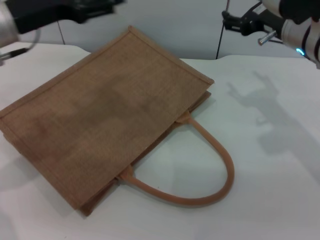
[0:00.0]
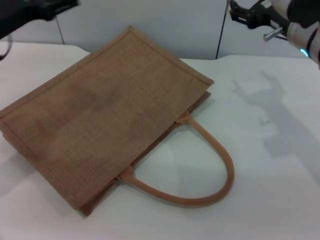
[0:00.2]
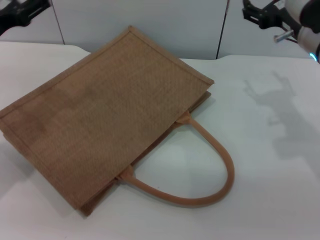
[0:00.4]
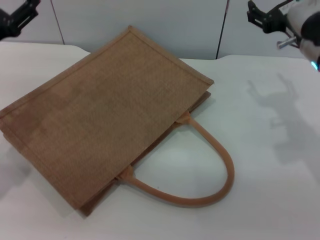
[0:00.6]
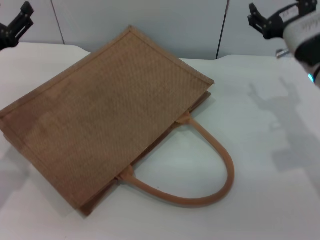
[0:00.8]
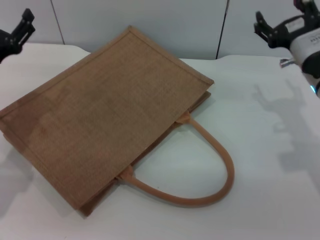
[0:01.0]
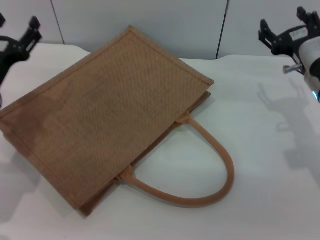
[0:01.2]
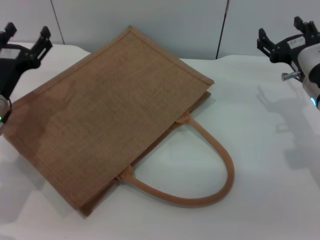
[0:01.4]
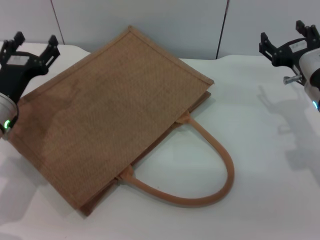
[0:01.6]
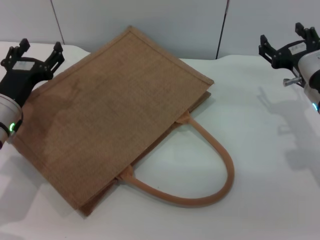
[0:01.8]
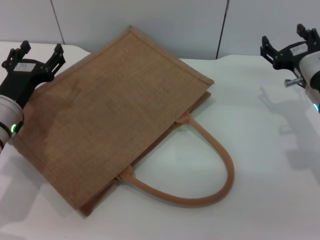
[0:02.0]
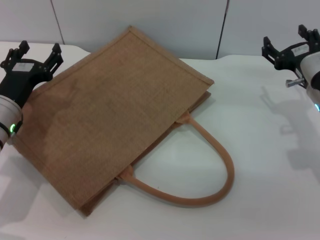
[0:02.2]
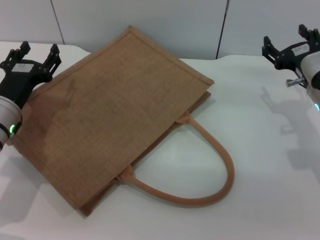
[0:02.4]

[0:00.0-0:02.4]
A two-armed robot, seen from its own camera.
Task of the whole recording: pick up the peach from the table and place it in the brown handbag.
0:00.0 to 0:01.2: The right gripper is displaced downward by approximately 10 cm. Meanwhile the left gripper goes approximately 15 cm downward and backward.
0:01.2 to 0:02.4: There are only small adjustments of the grippers.

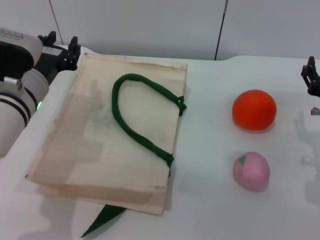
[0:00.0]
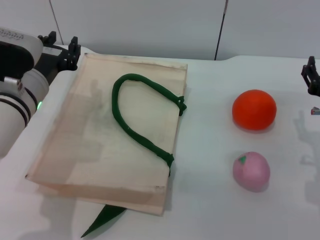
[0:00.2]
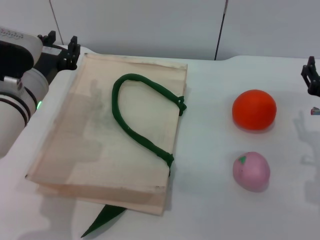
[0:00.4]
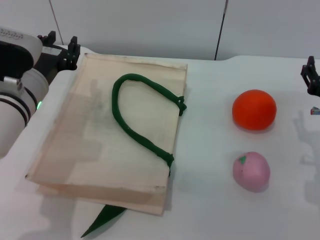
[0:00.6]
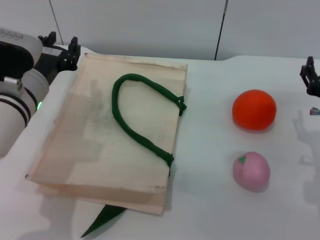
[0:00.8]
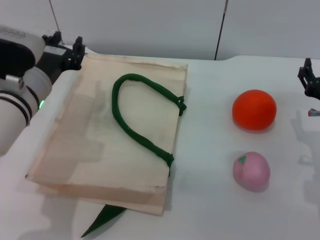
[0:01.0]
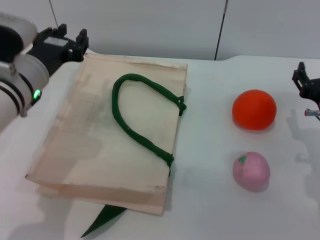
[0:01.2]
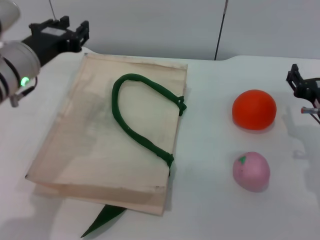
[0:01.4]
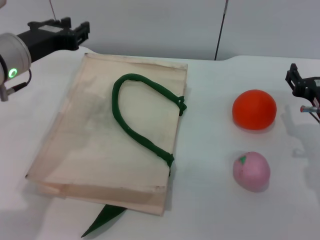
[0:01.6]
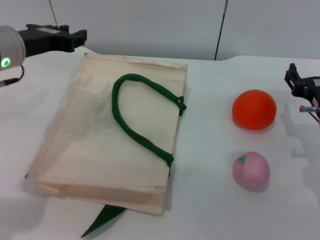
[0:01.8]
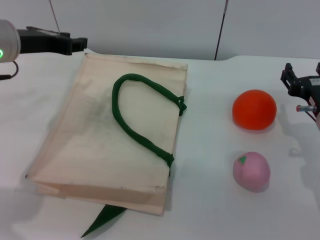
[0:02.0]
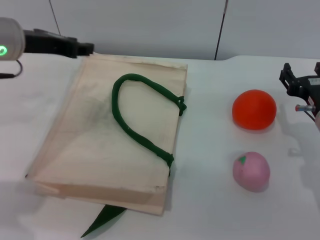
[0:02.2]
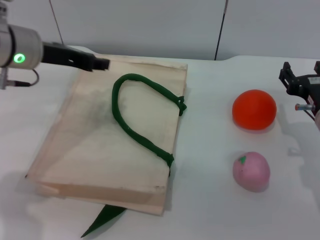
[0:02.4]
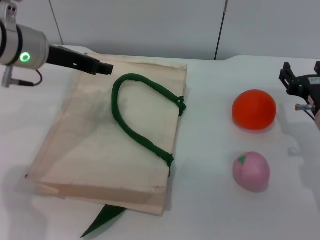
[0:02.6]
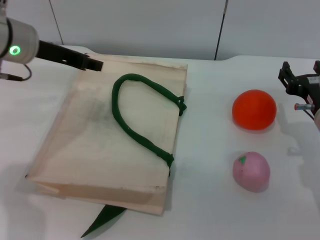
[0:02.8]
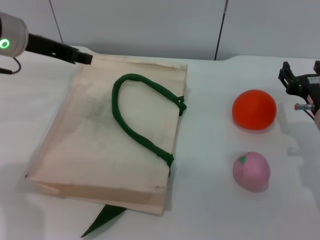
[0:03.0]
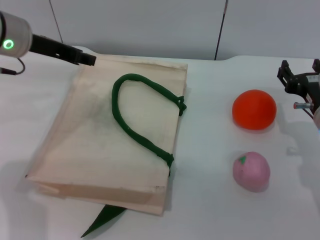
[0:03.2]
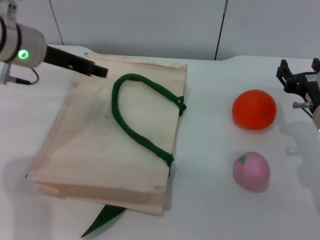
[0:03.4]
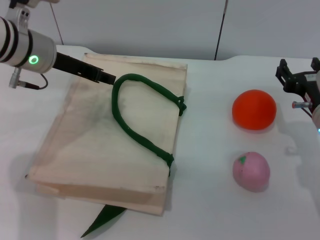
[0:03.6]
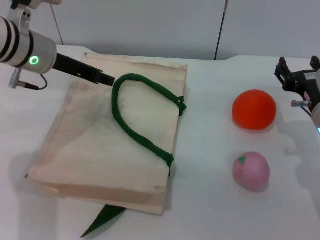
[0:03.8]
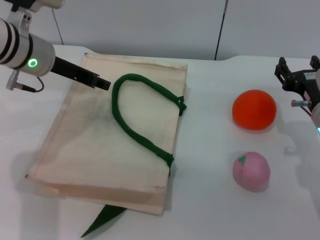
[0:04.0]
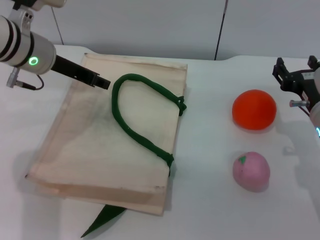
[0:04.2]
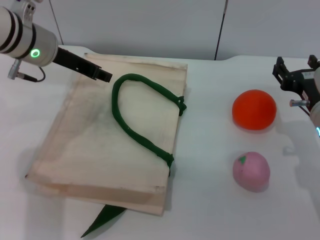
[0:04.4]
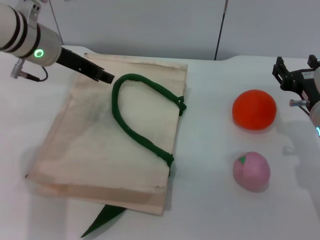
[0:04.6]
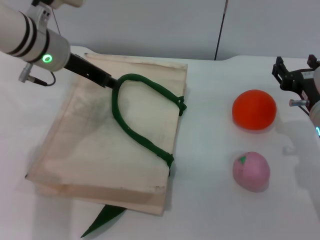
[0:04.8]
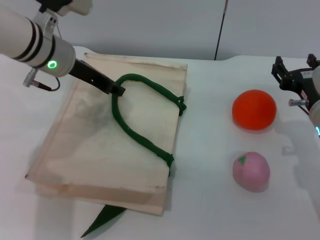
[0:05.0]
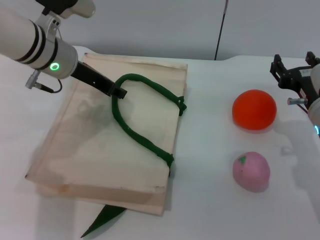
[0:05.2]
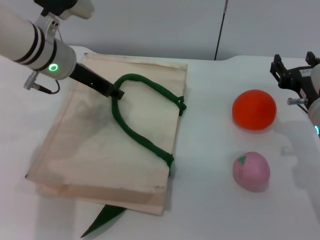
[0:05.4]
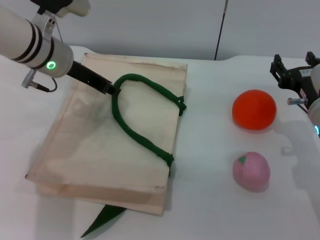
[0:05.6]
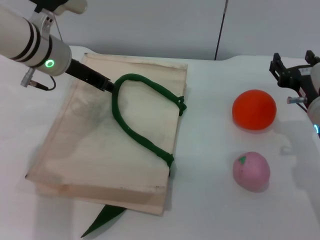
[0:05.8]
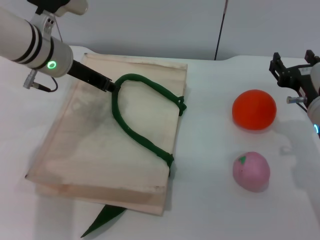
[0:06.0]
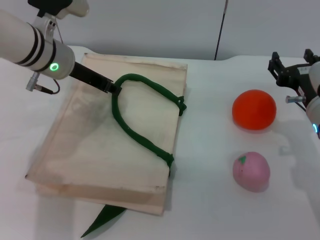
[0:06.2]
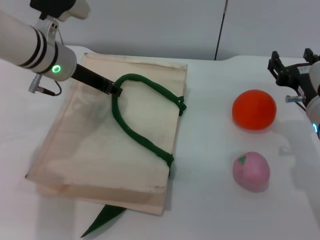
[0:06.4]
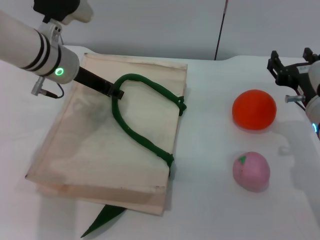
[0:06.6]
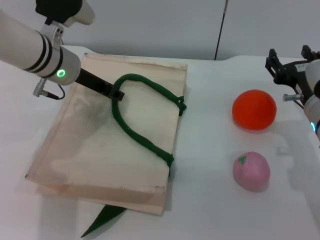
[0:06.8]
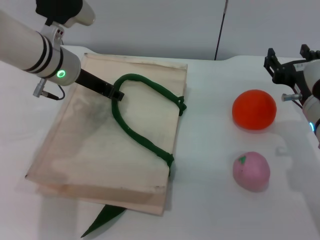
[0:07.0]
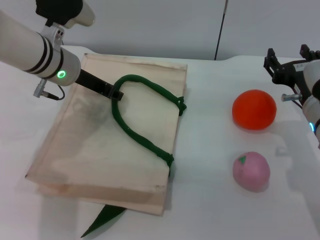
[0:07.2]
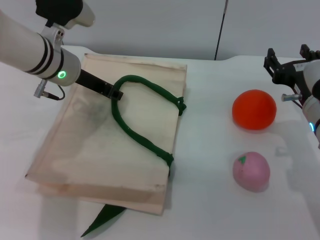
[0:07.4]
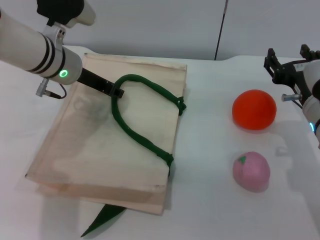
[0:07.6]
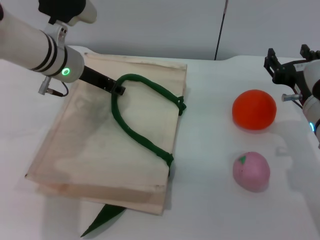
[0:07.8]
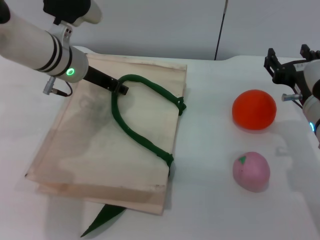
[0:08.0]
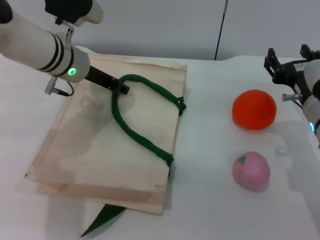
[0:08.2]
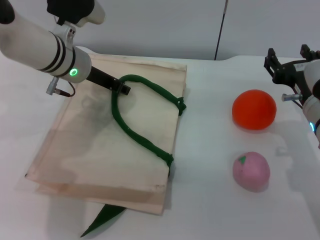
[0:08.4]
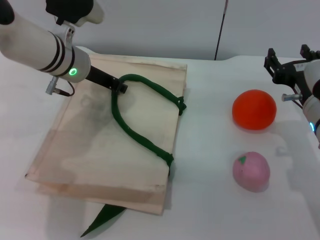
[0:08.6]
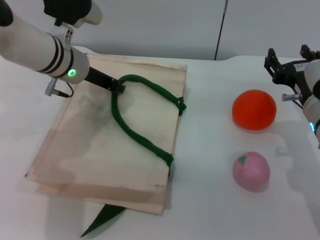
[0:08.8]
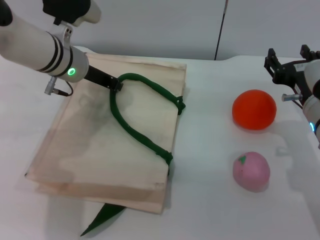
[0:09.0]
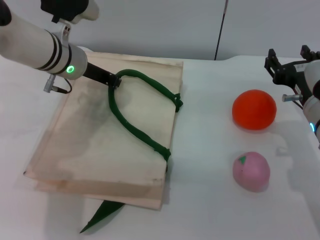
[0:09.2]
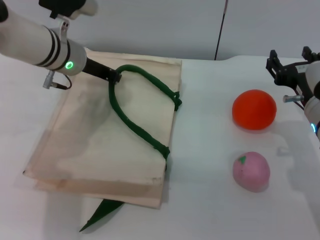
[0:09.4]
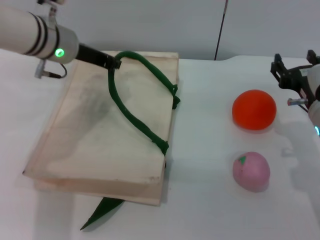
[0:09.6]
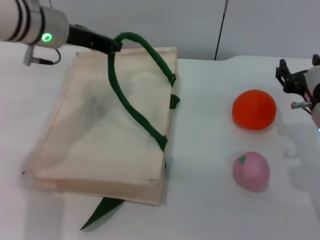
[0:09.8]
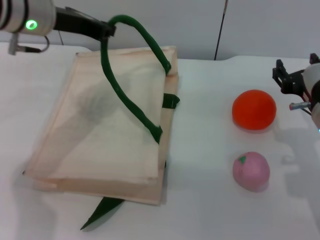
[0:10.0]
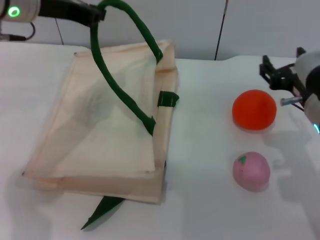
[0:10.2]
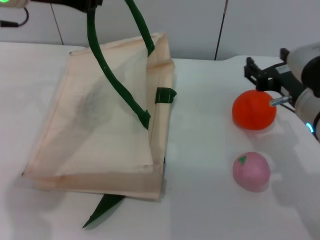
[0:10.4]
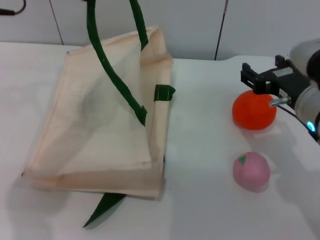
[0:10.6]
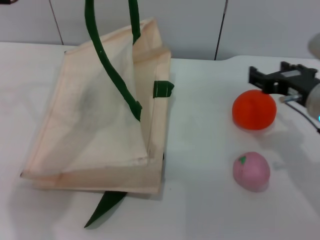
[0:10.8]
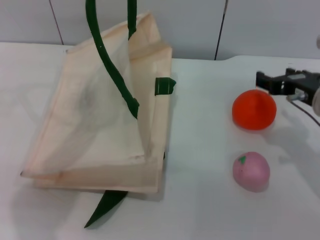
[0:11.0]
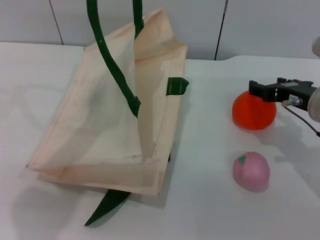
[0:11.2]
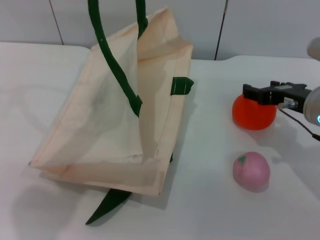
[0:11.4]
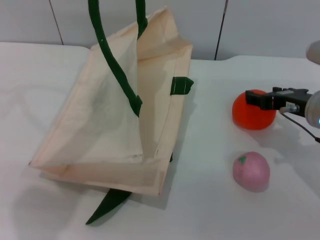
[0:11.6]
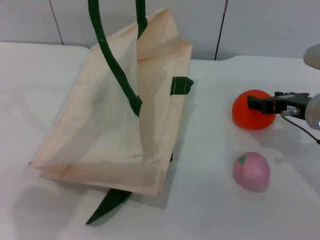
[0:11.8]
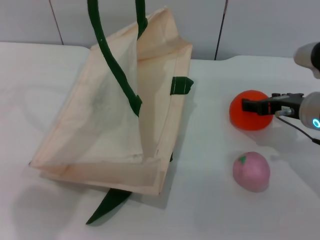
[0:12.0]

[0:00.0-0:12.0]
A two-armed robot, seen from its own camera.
Task of the whole recording: pick up the orange and peach from the table and place it in the white handbag.
Step, 0:00.0 to 0:09.0: Lift the woven bag with the left gripper to open it.
0:00.0 to 0:01.6: The left gripper is displaced upward by approximately 5 cm.
0:01.6 to 0:03.0: The left gripper moves roughly 5 cm.
0:03.0 to 0:04.4: The grippers move only a little.
0:04.4 to 0:07.6: There are only small adjustments of the grippers.
0:07.6 to 0:09.0: The left gripper closes.
0:09.0 to 0:10.4: The left gripper heads upward, covering some 15 cm; the right gripper moves about 5 cm.
0:10.4 to 0:12.0: The left gripper travels upward by about 5 cm; the right gripper moves forward, some 5 cm.

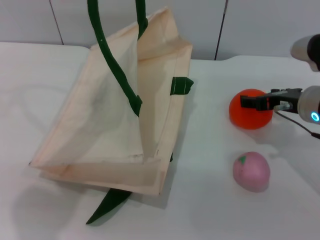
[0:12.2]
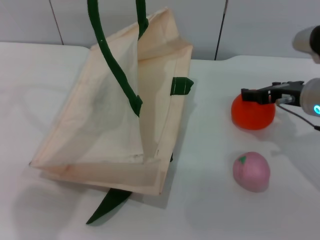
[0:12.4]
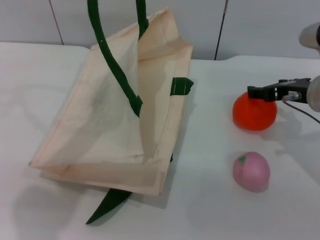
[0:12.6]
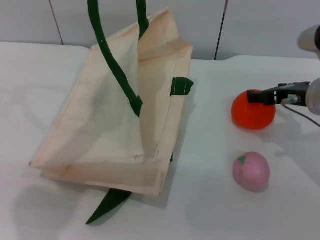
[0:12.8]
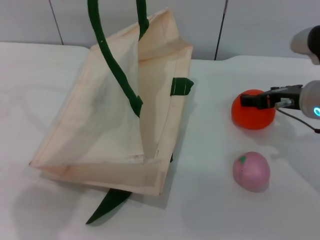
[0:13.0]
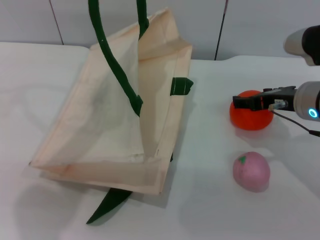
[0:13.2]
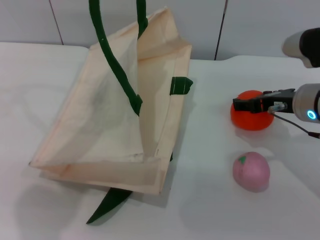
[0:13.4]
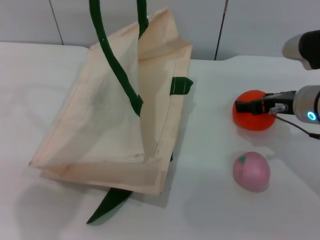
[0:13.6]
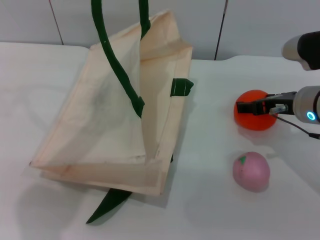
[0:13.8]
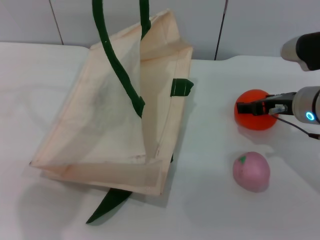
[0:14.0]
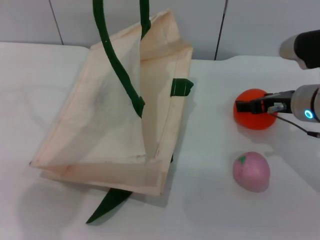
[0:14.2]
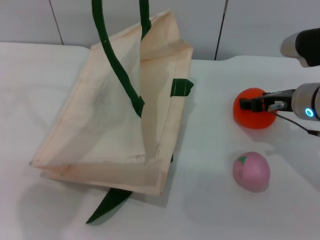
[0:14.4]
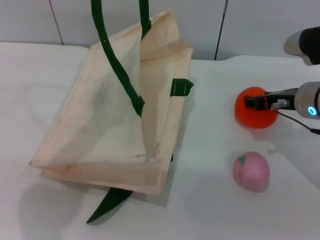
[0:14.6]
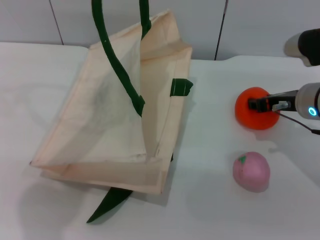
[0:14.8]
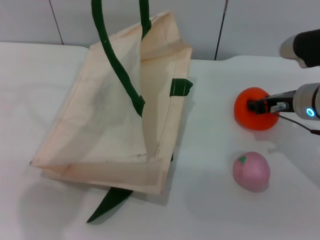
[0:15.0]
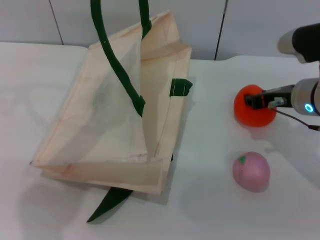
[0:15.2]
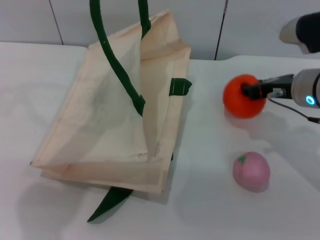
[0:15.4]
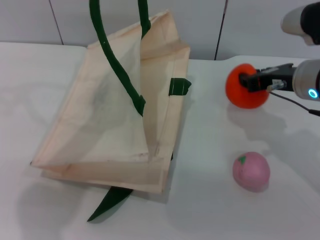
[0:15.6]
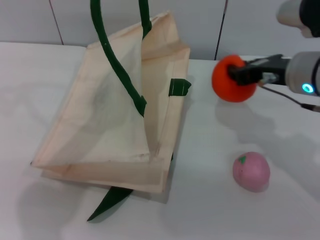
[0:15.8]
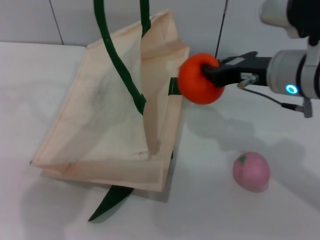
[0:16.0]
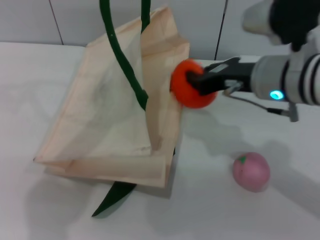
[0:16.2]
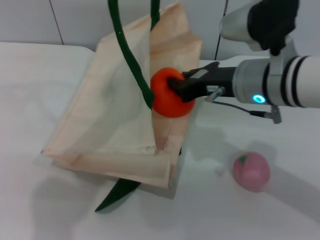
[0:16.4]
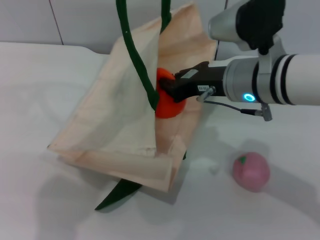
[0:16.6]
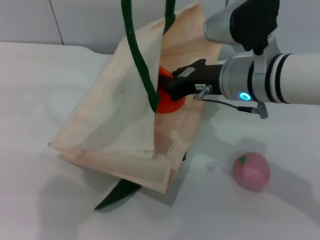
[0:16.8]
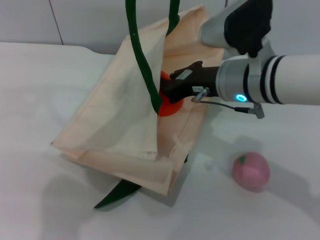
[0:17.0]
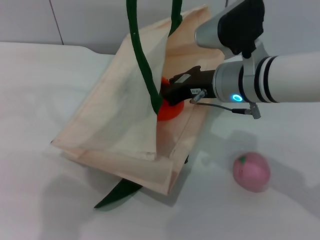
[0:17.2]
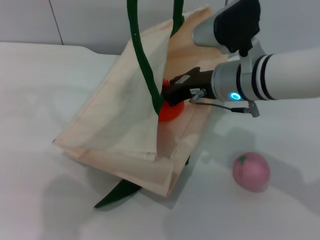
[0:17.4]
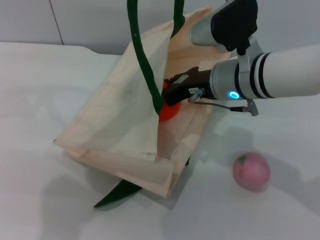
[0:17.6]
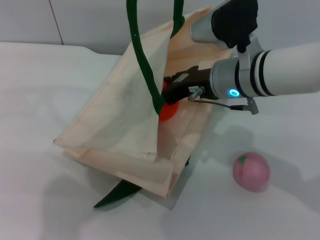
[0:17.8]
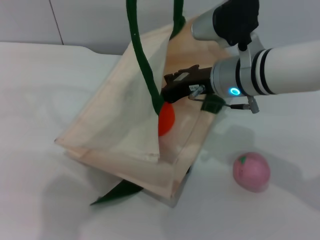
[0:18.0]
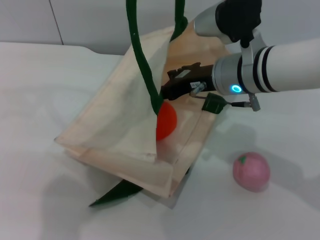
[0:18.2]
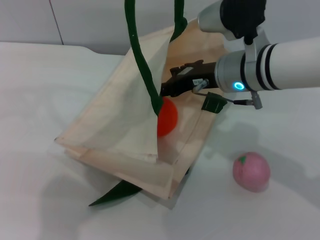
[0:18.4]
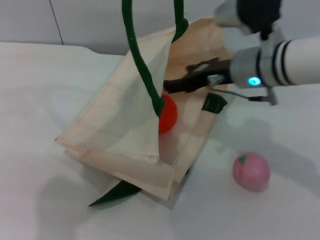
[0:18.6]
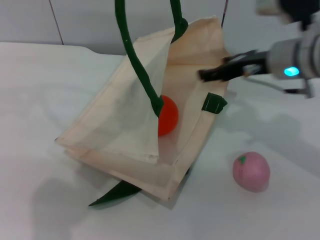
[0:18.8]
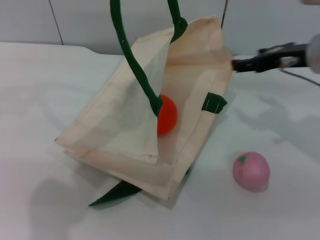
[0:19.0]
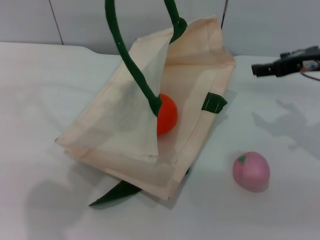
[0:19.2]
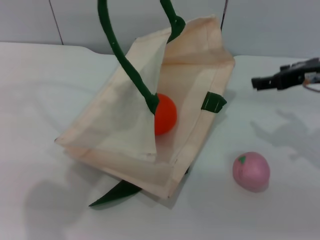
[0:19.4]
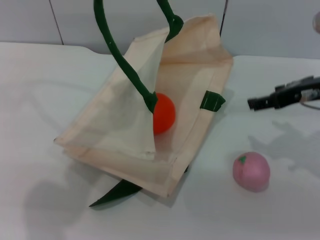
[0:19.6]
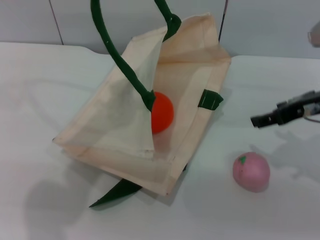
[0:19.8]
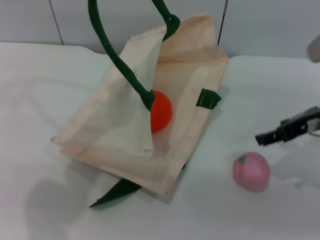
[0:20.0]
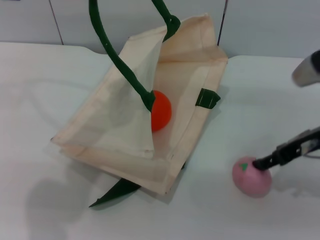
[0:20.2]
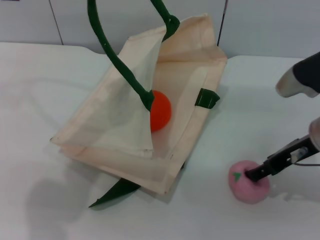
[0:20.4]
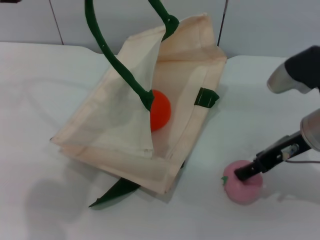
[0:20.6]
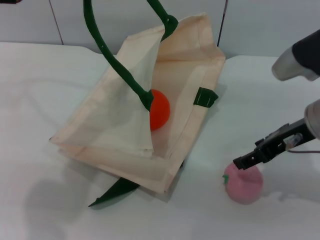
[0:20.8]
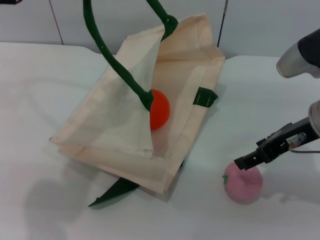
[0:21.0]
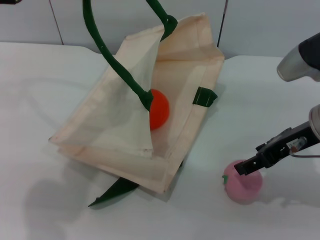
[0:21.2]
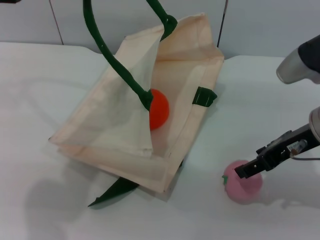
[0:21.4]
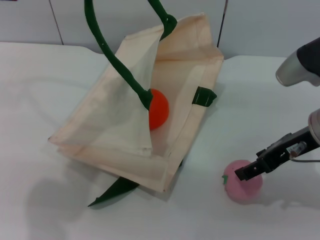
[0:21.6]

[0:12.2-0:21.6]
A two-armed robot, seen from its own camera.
Task of the whole recording: pick up the orange and peach from the table and place it in the white handbag.
Step, 0:12.2 to 0:15.6: Pick up the orange with the right gripper.
Step, 0:15.8 to 0:19.0: Place the orange into the woven bag with the right gripper.
0:12.2 to 0:13.8: There are only small adjustments of the grippers.
0:13.8 to 0:15.4: The right gripper closes.
0:15.4 to 0:17.0: The right gripper is displaced to the left by roughly 10 cm.
0:17.0 to 0:18.4: The right gripper opens up.
0:18.4 to 0:20.0: The right gripper heads to the right, covering about 15 cm.
0:20.0 to 0:21.6: There are only small adjustments of the grippers.
